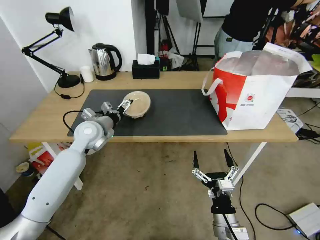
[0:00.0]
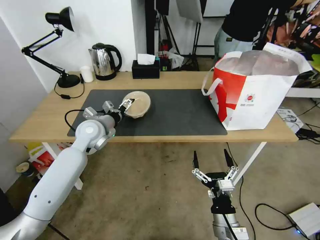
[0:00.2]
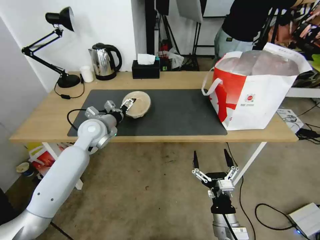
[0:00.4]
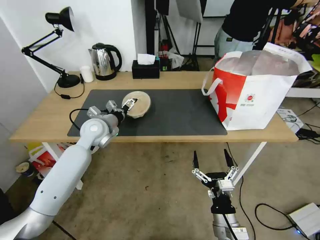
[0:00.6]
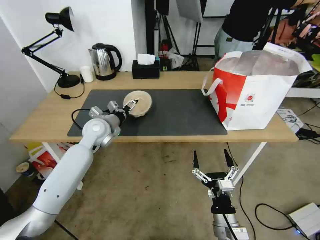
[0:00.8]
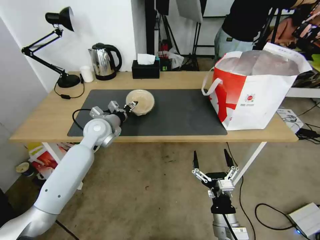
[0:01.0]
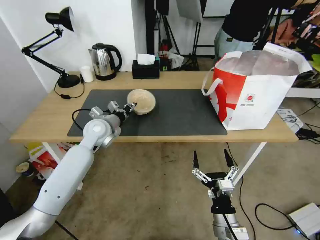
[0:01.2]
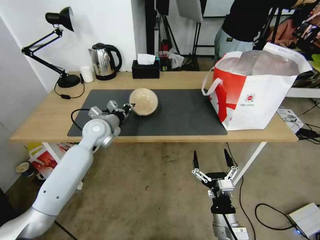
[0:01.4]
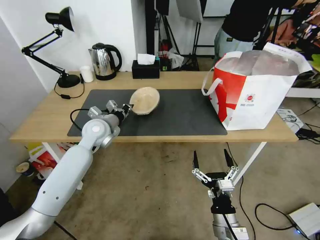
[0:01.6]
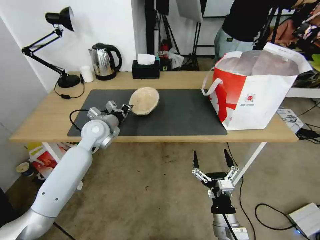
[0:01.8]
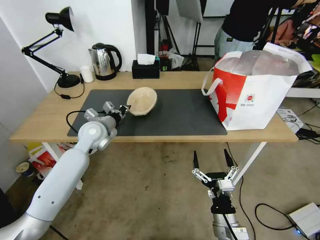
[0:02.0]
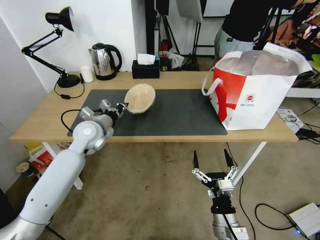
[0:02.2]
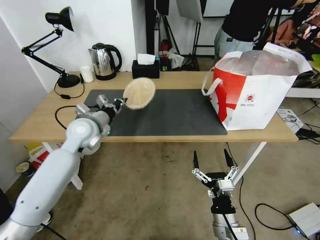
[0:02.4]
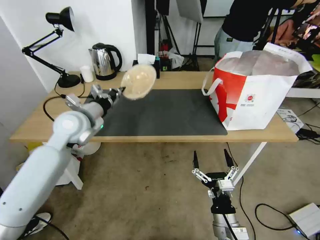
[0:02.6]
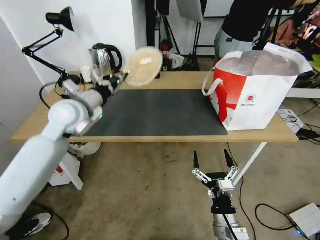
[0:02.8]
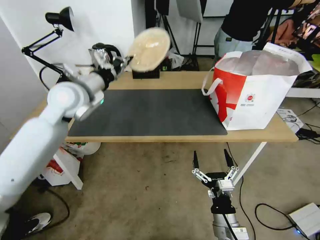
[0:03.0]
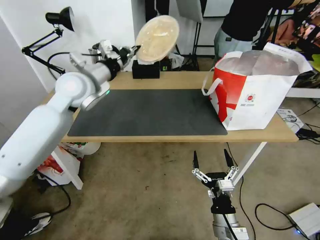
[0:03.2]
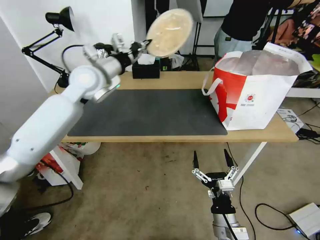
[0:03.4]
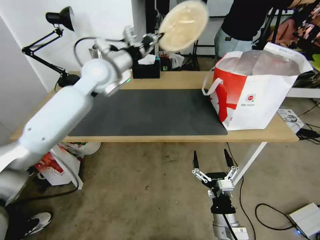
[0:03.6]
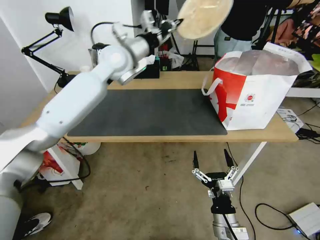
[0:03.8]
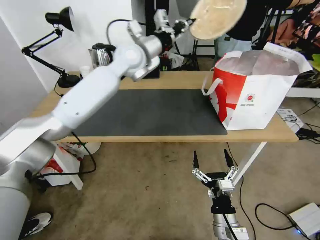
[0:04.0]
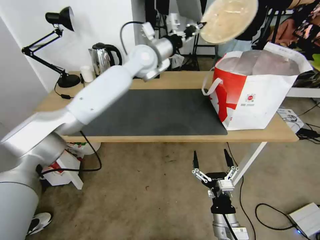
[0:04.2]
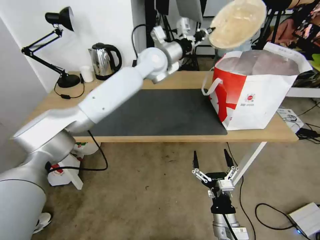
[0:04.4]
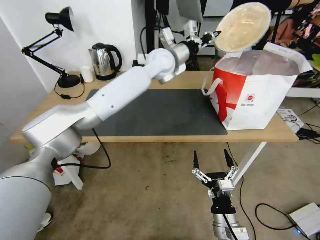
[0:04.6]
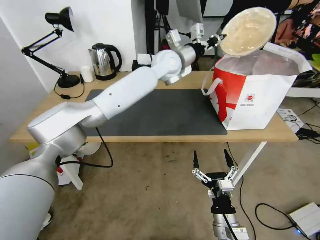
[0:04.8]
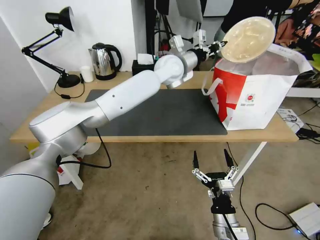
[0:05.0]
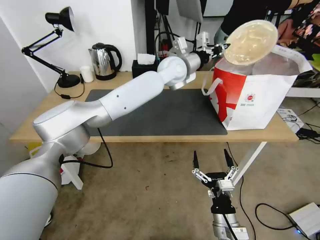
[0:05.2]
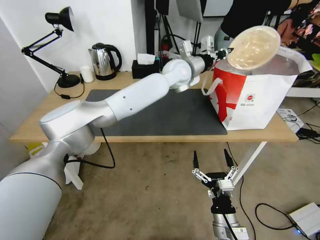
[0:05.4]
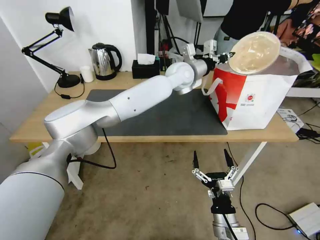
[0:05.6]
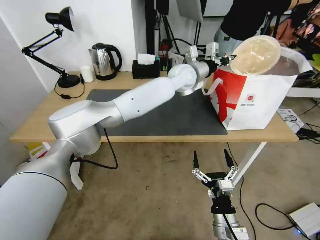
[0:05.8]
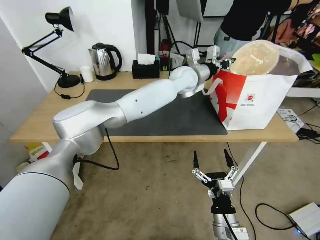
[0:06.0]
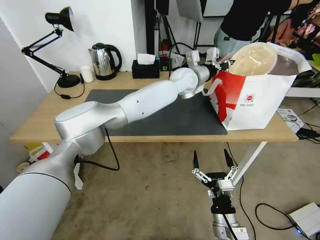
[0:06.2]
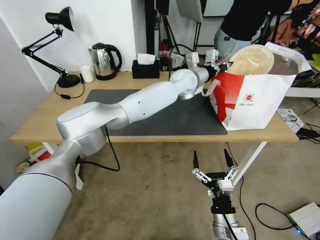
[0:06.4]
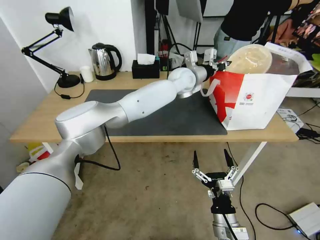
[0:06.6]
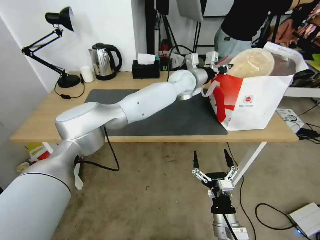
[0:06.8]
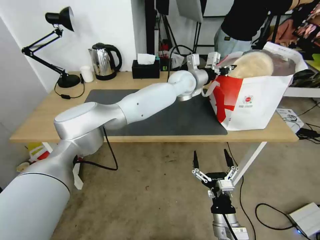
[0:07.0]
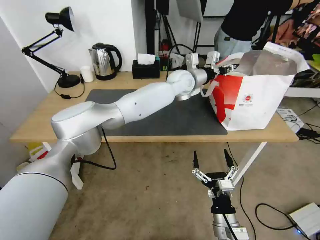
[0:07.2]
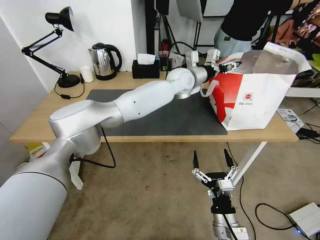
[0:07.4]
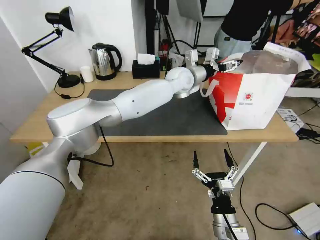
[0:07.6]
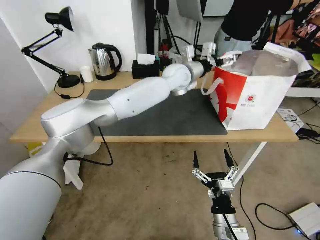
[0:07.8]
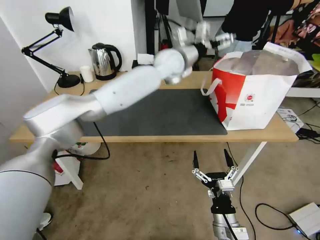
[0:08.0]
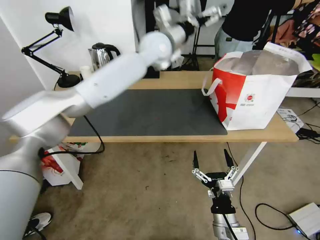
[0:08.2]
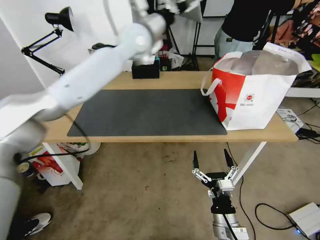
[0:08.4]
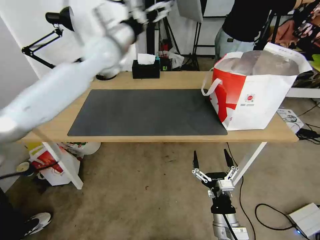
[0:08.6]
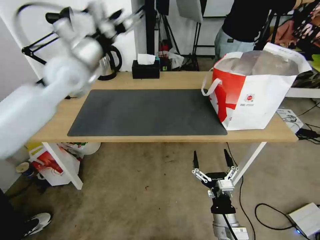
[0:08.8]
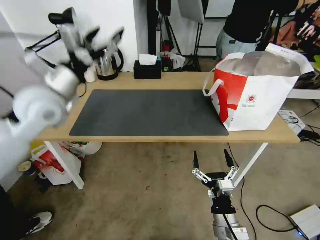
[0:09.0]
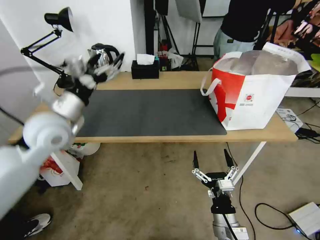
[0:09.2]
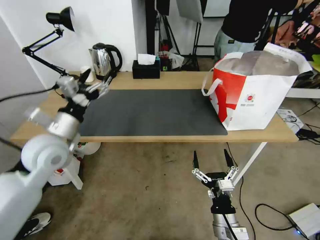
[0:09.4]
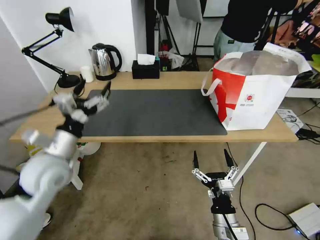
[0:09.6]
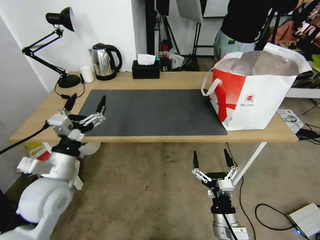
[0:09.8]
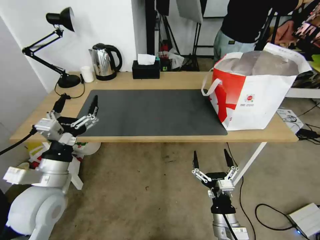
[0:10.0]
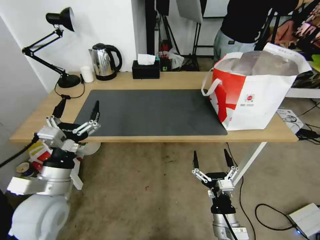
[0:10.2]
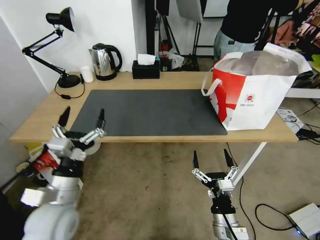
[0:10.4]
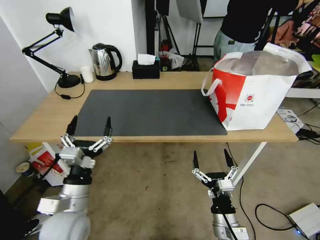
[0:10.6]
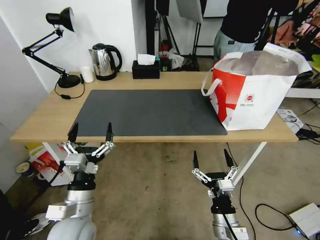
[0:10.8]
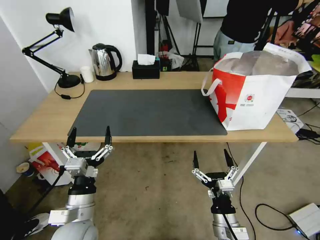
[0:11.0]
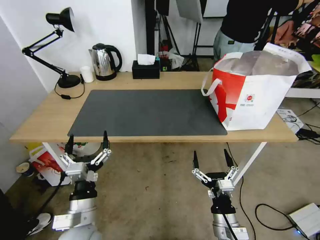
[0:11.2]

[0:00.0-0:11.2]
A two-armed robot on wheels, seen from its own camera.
Task of the whole recording: Pick up the trash from the table and place it into the takeout bag.
0:00.0 to 0:01.6: The left gripper closes its fingers.
0:01.6 to 0:03.2: The left gripper goes approximately 20 cm upward.
0:03.2 to 0:04.8: The left gripper is displaced to the right and forward by approximately 30 cm.
0:04.8 to 0:06.4: The left gripper is displaced downward and to the right by approximately 10 cm.
0:06.4 to 0:08.0: The left gripper moves upward and to the left, roughly 10 cm, and opens.
0:08.0 to 0:09.6: The left gripper goes approximately 50 cm backward, to the left and downward.
0:09.6 to 0:11.2: The left gripper goes some 20 cm backward, downward and to the right.

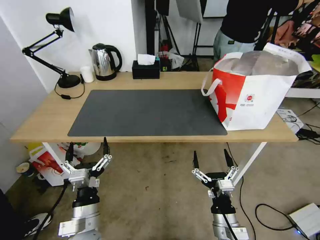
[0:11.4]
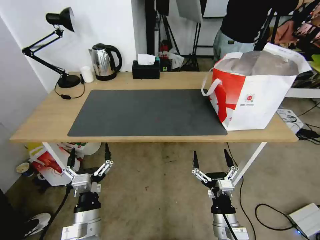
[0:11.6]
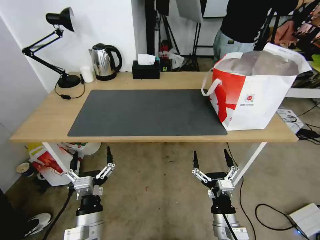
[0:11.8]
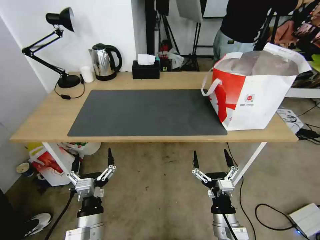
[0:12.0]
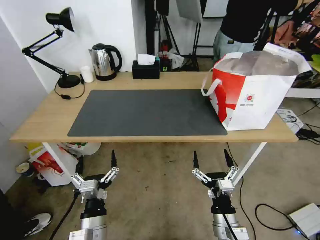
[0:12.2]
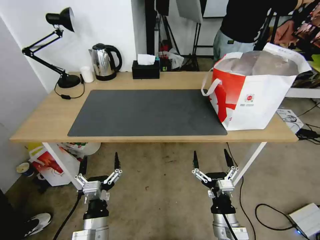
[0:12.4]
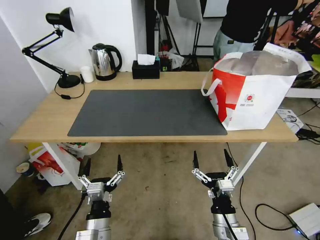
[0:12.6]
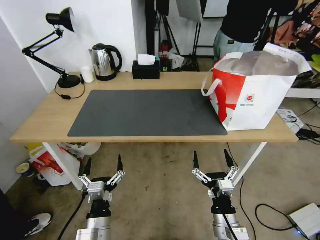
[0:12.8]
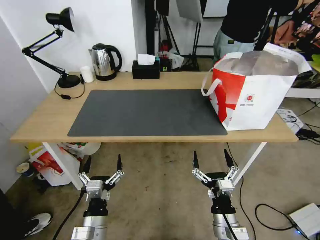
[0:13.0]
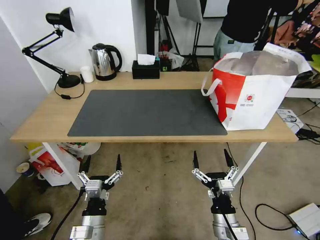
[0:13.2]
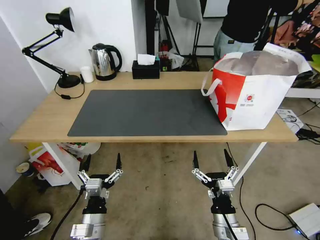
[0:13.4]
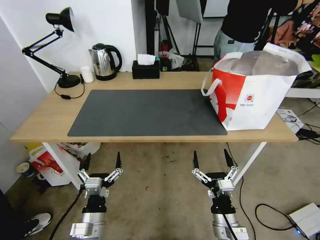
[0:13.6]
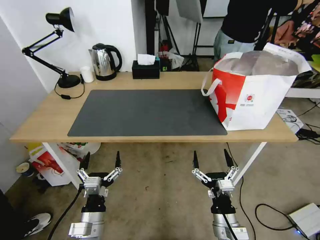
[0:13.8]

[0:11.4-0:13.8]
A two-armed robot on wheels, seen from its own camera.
Task of the whole recording: Pick up the trash from the table and place it into the takeout bag.
0:11.4 to 0:12.6: The left gripper ends up roughly 5 cm from where it was.
0:12.6 to 0:13.8: There are only small adjustments of the grippers.

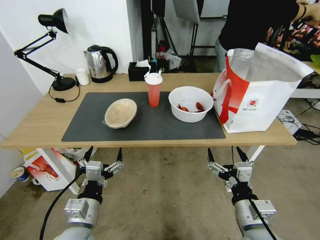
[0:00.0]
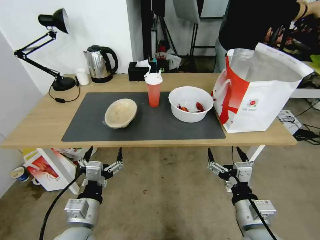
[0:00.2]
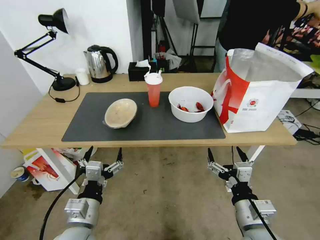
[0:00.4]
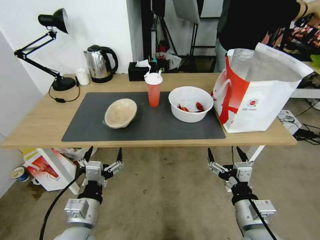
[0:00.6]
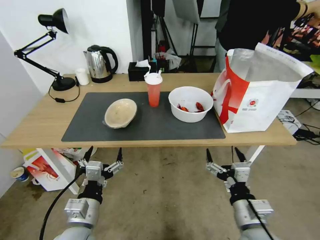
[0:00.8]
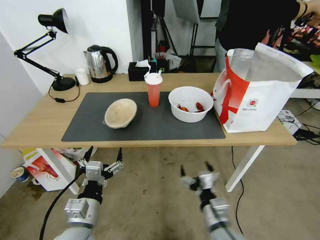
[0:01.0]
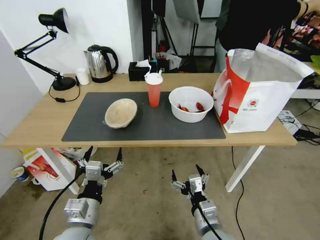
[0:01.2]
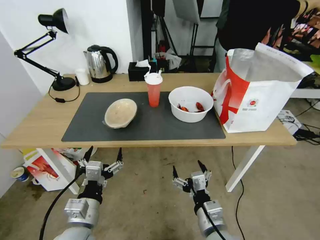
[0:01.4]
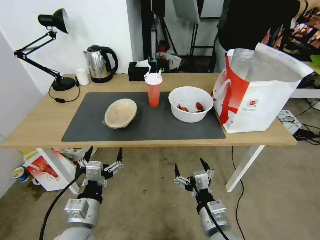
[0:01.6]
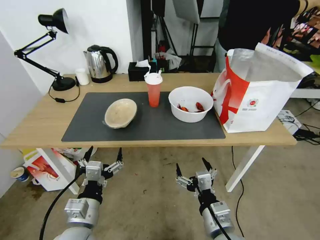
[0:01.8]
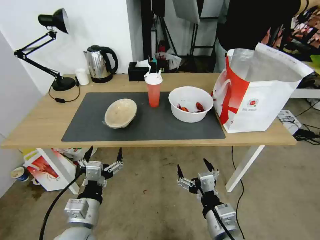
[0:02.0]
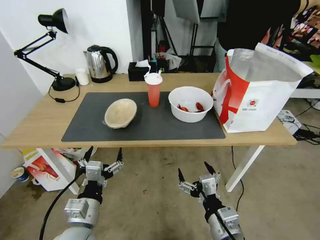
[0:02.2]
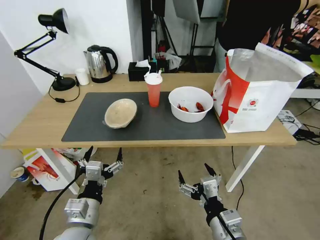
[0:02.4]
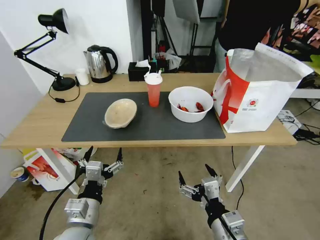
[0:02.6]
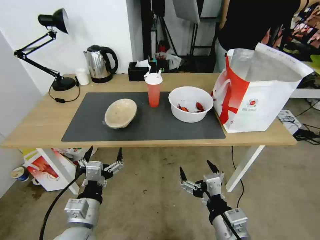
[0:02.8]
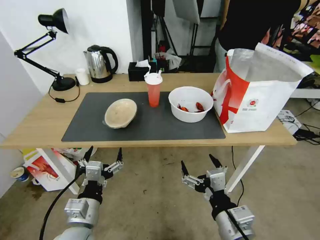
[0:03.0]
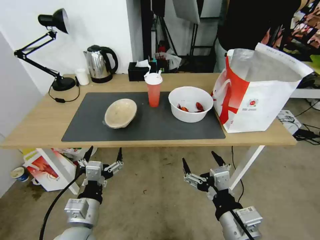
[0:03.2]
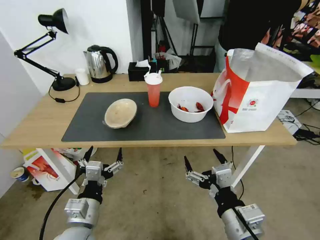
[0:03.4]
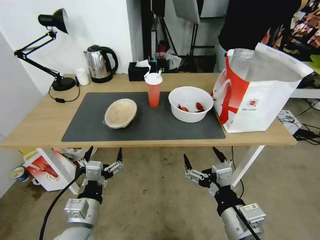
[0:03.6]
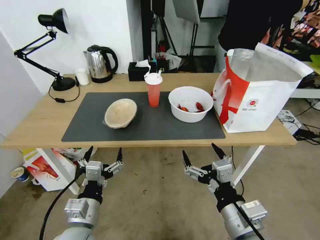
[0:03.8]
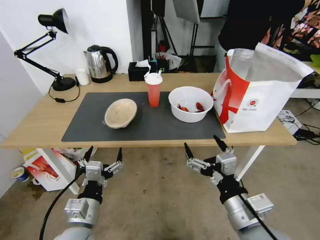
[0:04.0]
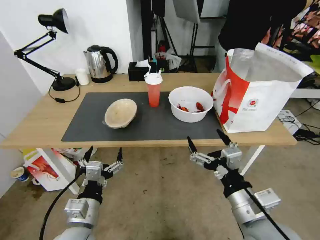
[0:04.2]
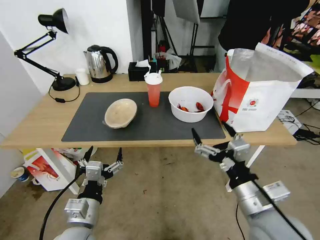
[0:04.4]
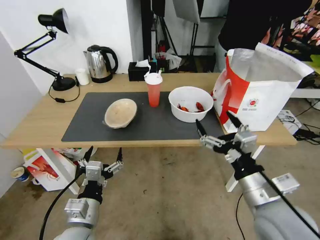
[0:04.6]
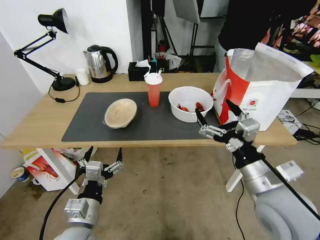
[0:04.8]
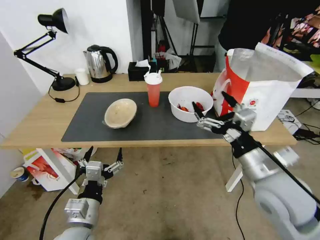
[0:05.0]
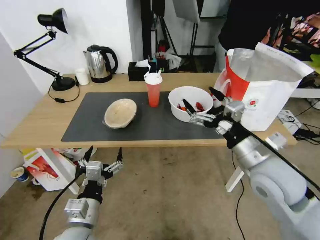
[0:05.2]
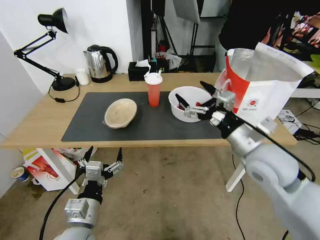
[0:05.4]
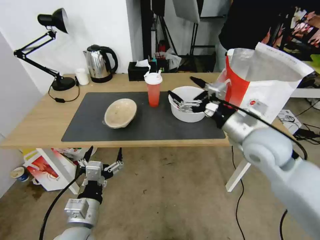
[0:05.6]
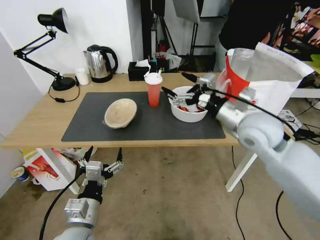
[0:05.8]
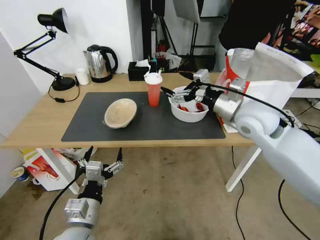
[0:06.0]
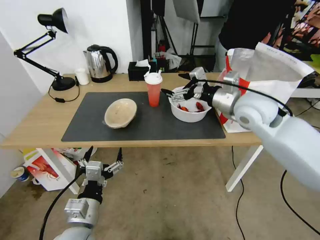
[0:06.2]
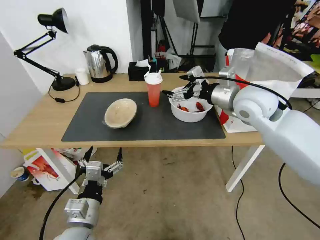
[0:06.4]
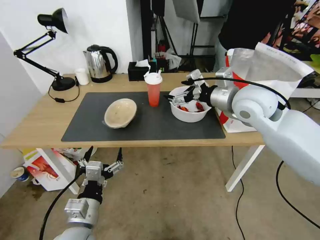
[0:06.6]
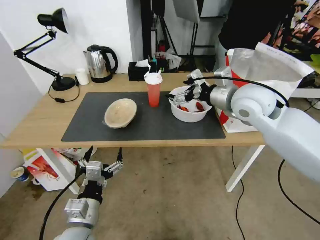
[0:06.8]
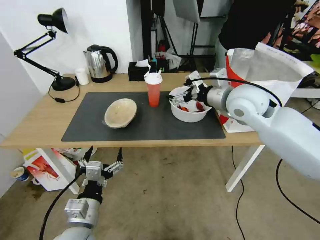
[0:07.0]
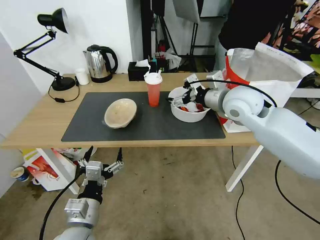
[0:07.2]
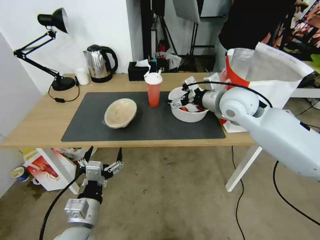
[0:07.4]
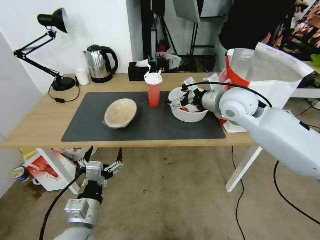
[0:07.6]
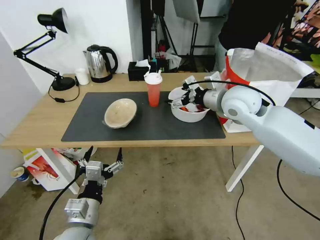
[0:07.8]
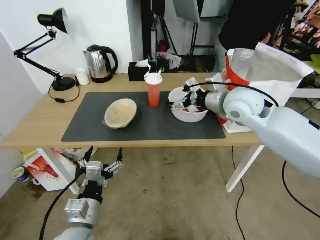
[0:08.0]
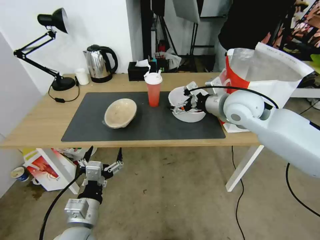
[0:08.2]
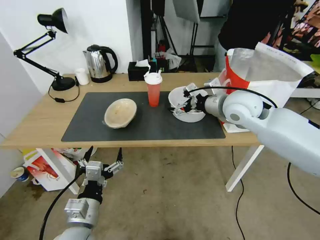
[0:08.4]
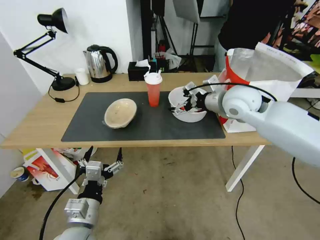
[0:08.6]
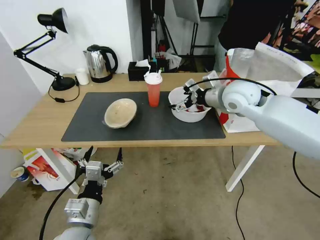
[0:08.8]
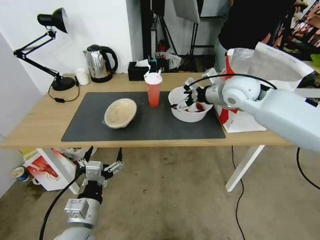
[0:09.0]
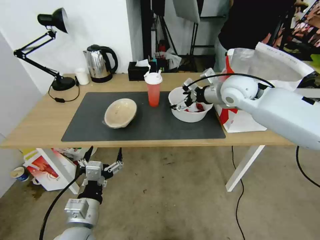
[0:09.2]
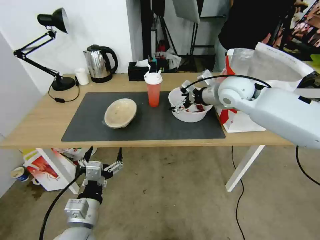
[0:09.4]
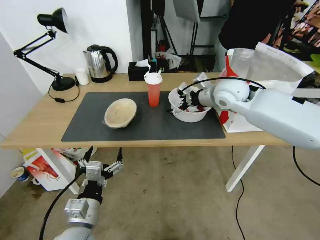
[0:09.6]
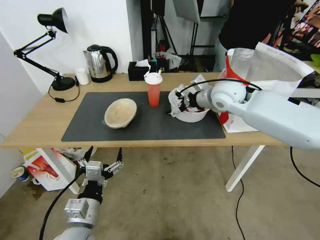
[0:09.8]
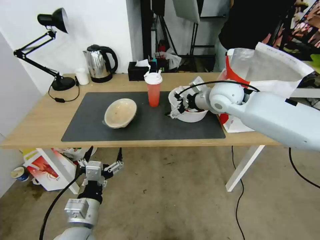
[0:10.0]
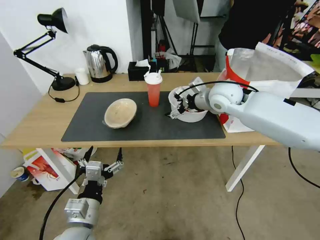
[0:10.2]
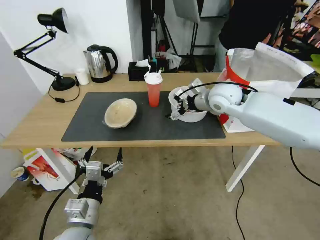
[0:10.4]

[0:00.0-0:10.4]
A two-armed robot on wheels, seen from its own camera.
Task of the whole recording: Pick up the trash from the table and place it into the takeout bag.
0:01.4 to 0:03.0: The right gripper goes some 5 cm upward.
0:03.0 to 0:04.4: The right gripper goes some 5 cm upward.
0:04.4 to 0:06.0: The right gripper travels forward and upward by about 25 cm.
0:06.0 to 0:07.4: The right gripper shifts approximately 5 cm forward.
0:07.4 to 0:09.0: There are only small adjustments of the grippers.
0:09.0 to 0:10.4: The grippers make only small movements.
